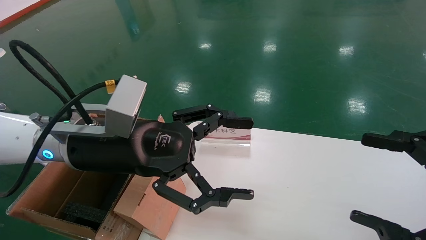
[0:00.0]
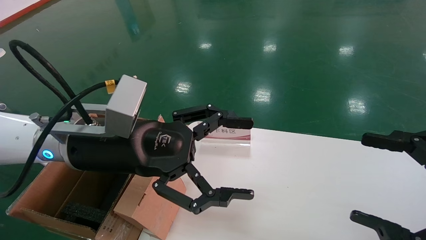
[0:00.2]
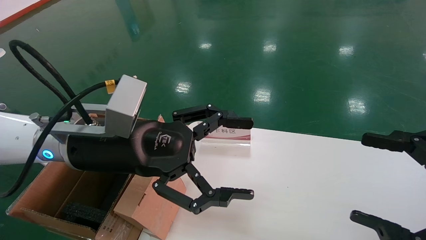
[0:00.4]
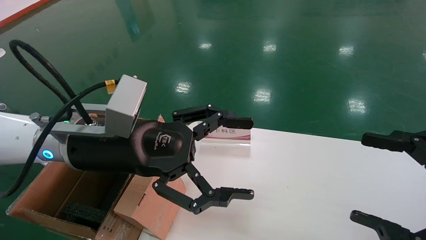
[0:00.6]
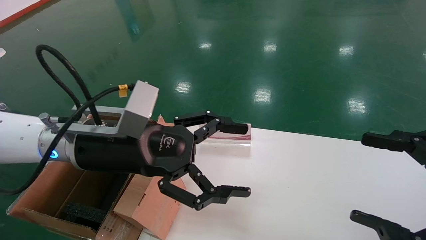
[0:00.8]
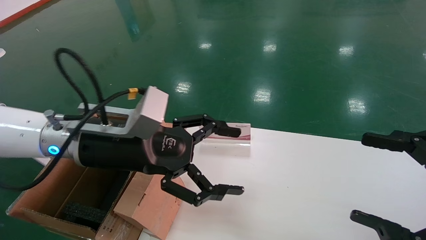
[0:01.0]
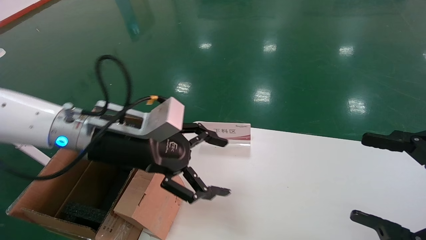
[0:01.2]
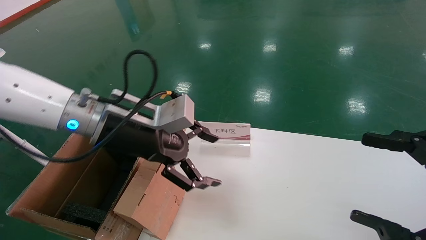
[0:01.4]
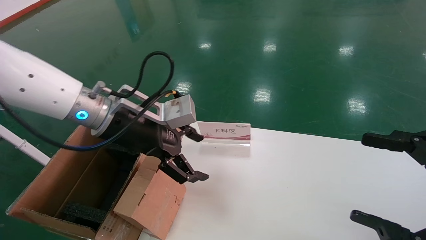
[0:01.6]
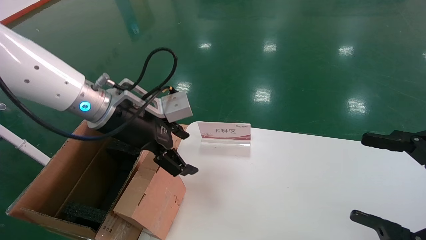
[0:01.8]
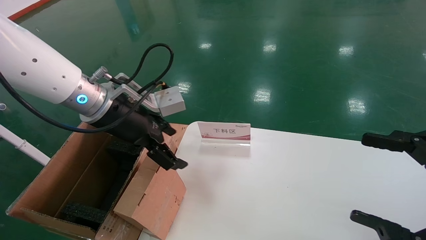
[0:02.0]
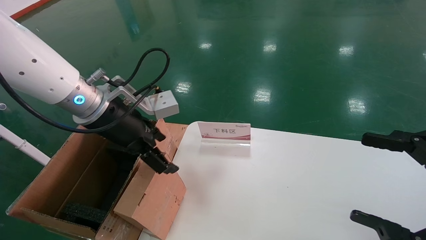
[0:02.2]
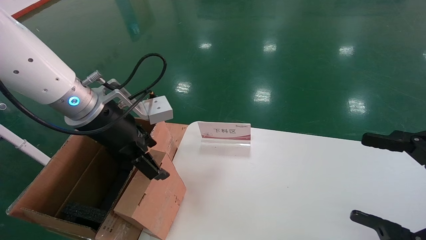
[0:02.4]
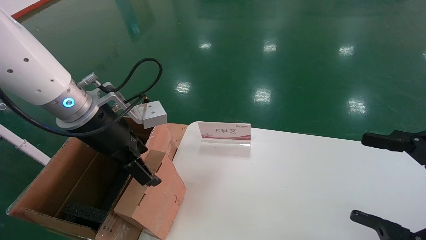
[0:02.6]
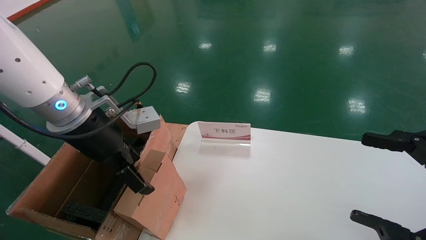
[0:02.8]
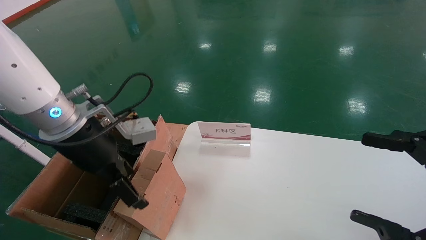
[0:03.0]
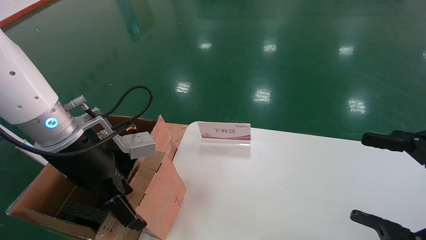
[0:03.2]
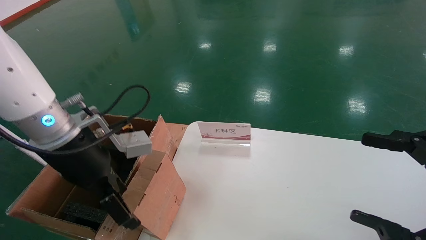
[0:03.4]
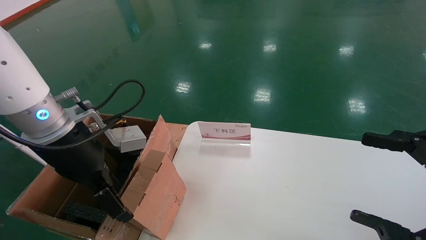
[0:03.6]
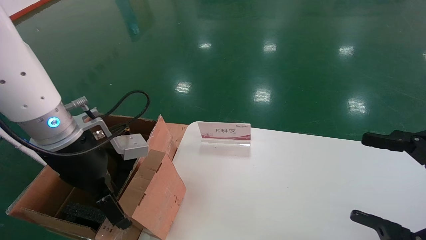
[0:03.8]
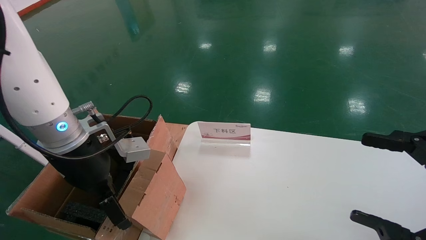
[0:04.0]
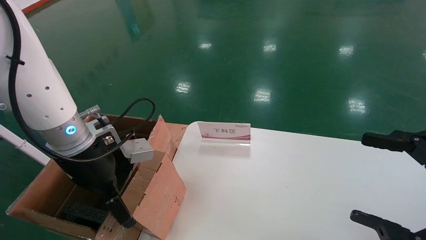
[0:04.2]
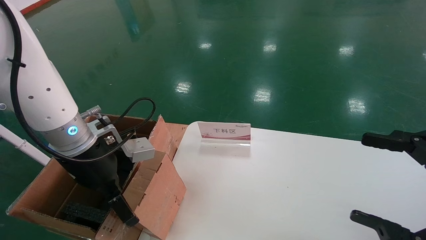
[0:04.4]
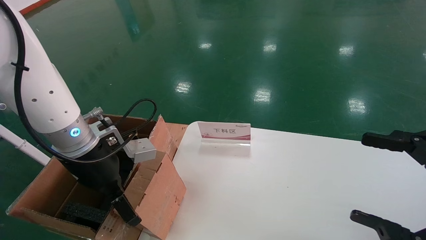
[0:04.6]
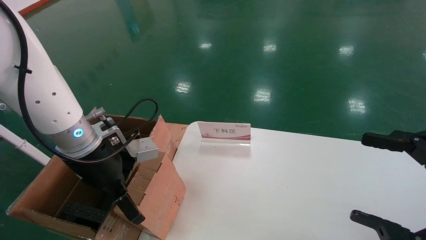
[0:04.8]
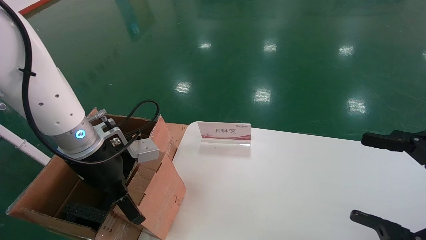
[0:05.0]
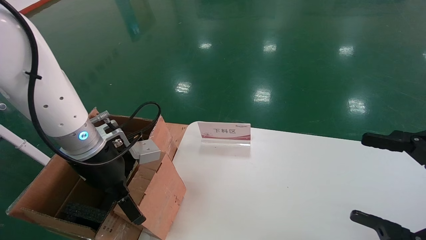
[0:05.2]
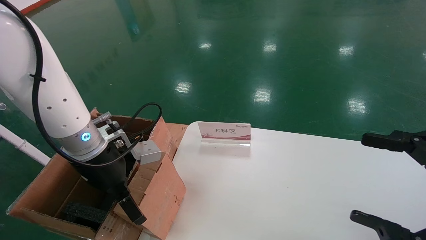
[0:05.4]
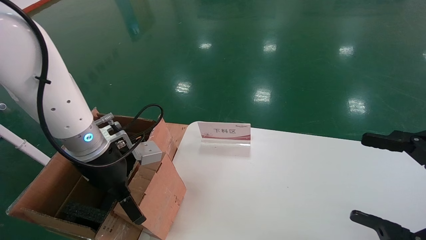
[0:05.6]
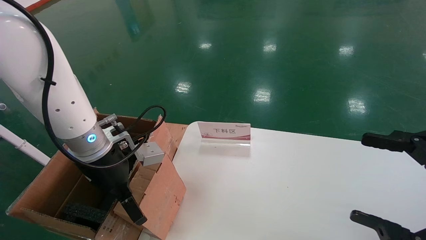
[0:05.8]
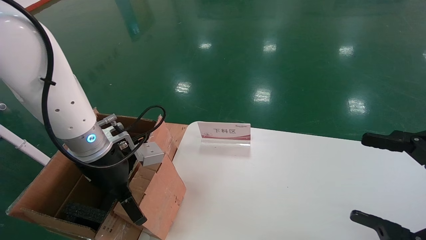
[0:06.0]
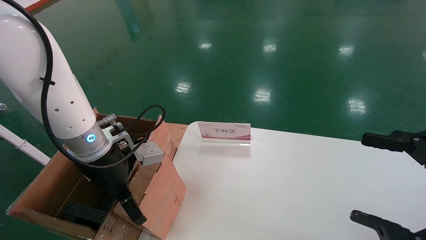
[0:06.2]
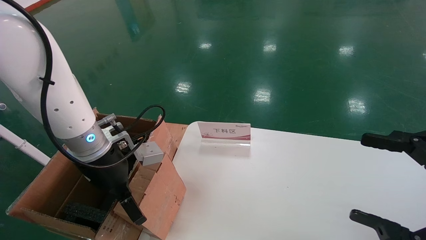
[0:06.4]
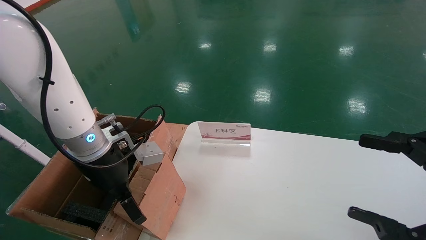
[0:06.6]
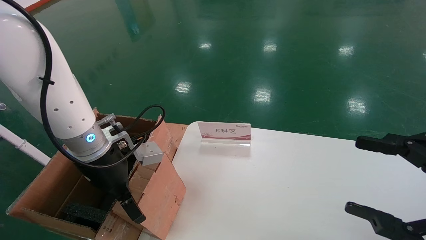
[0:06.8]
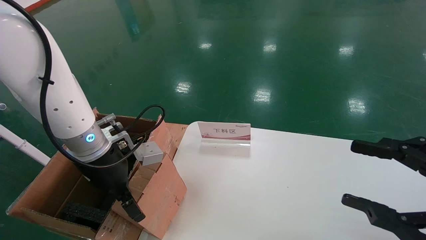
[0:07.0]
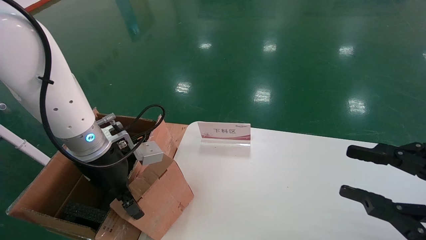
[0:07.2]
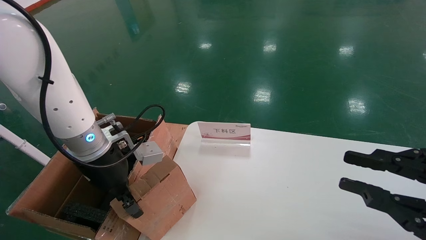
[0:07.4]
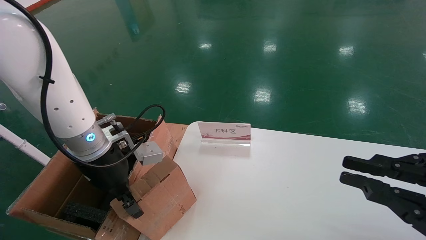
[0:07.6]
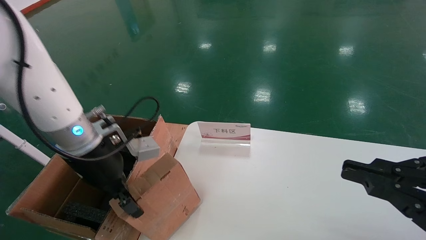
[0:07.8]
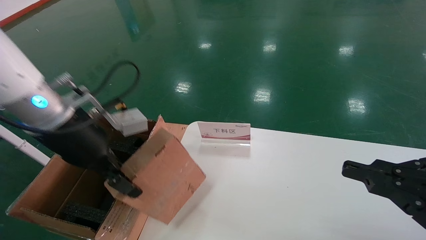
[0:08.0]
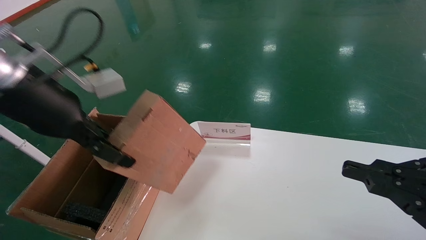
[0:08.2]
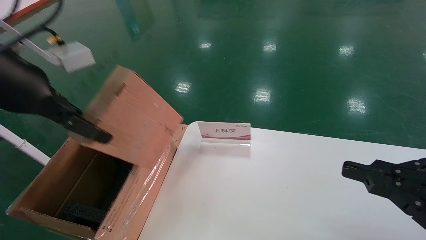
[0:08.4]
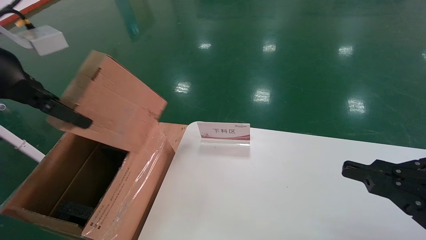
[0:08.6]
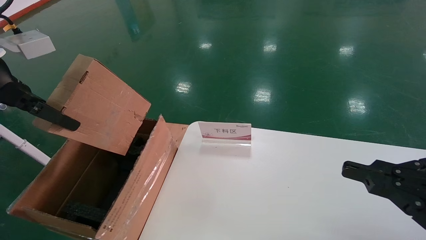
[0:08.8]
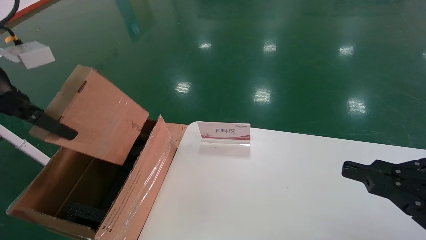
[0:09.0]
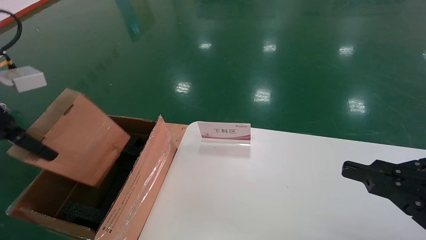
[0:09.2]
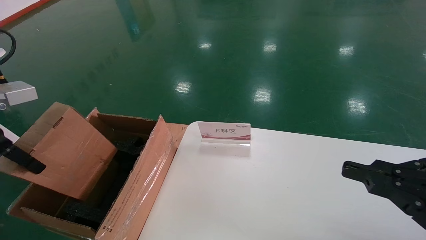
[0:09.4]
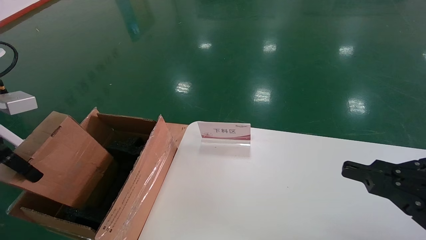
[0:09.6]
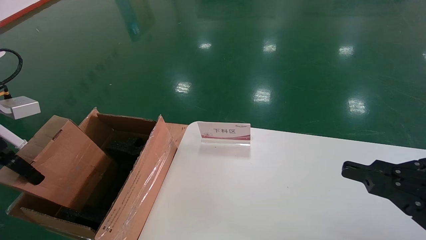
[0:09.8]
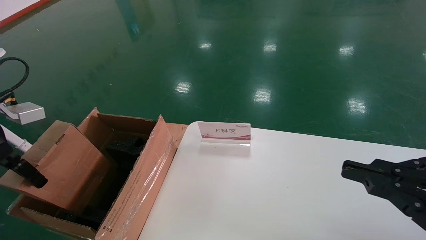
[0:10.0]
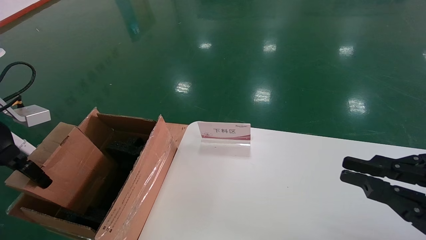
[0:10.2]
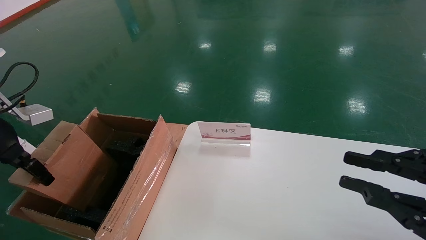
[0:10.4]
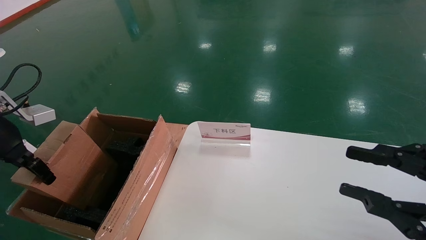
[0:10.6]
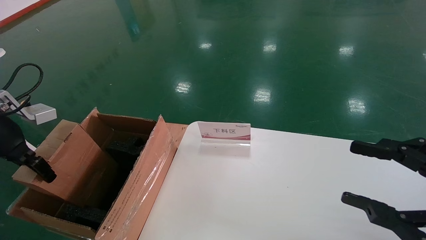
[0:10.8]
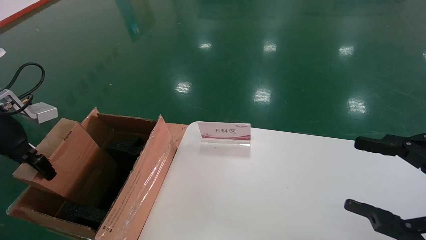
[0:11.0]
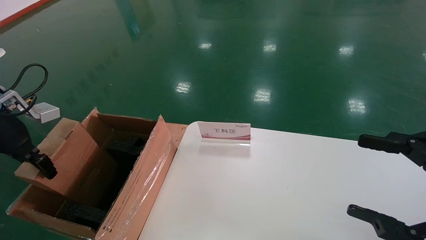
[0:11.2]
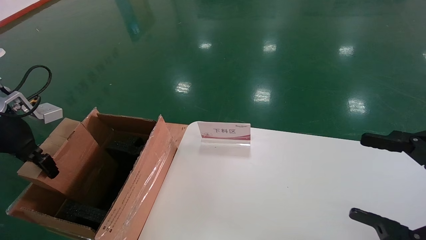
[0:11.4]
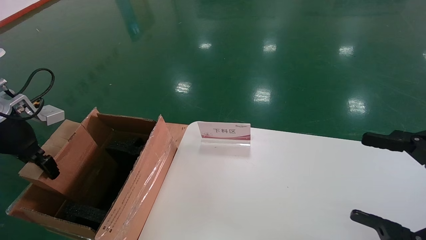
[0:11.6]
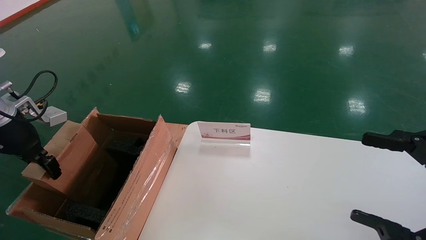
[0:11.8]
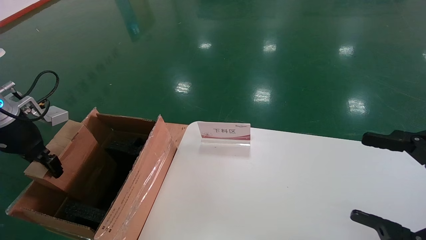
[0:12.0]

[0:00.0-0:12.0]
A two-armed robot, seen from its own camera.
Task of the whole recording: pick up the small cardboard box and load it into the large cardboard box.
Step, 0:01.0 to 0:07.6: Pick up the mouse and power cord box.
0:00.0 to 0:01.6: The left gripper is displaced forward by approximately 5 cm.
0:01.6 to 0:03.0: The left gripper ends up about 5 cm from where it was.
0:03.0 to 0:06.0: The grippers make only small movements.
0:06.0 to 0:07.6: The left gripper closes. Meanwhile the right gripper closes up.
0:07.6 to 0:09.0: The left gripper moves upward, to the left and backward, approximately 20 cm.
0:09.0 to 0:10.4: The left gripper heads downward and to the left, covering some 10 cm.
0:10.4 to 0:12.0: The left gripper moves forward, some 5 cm. The right gripper opens its fingers.

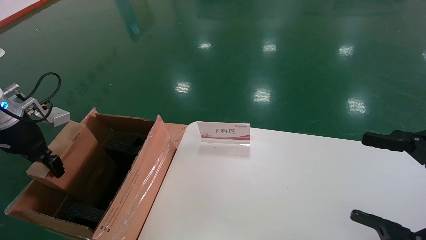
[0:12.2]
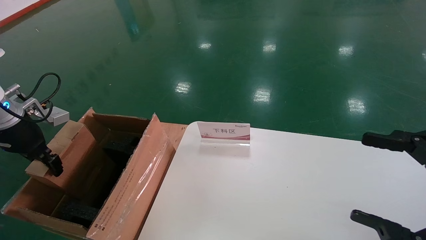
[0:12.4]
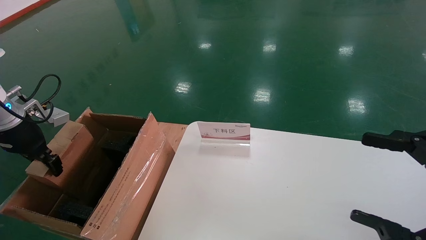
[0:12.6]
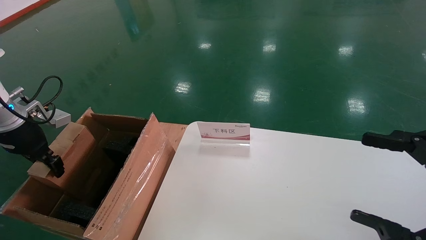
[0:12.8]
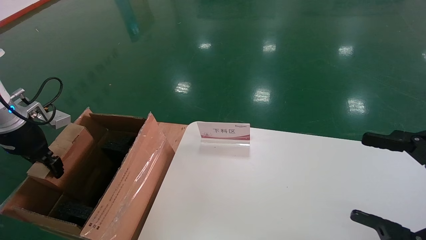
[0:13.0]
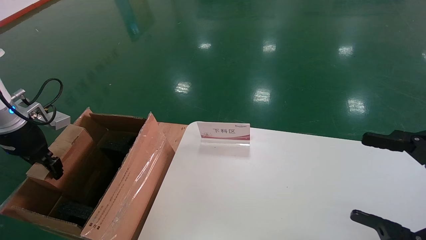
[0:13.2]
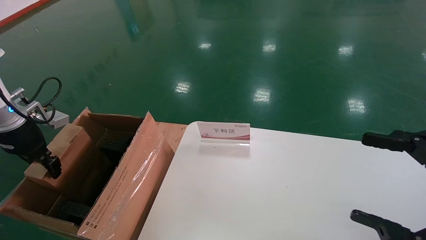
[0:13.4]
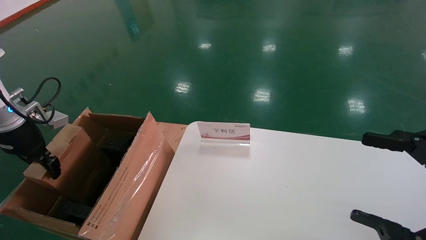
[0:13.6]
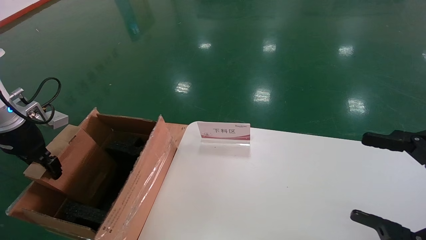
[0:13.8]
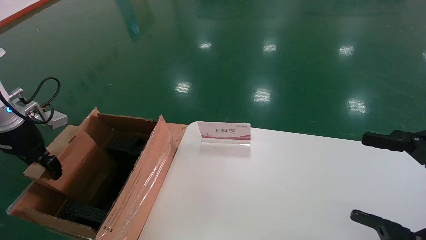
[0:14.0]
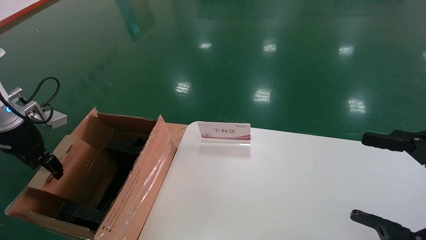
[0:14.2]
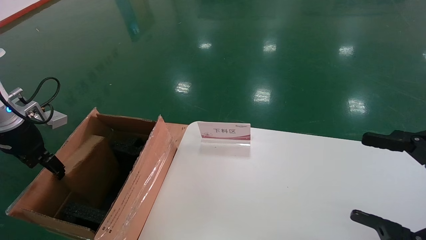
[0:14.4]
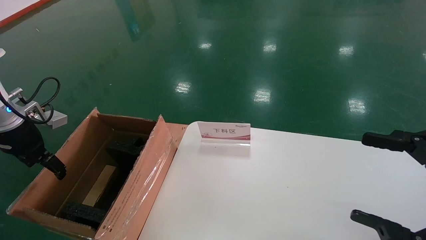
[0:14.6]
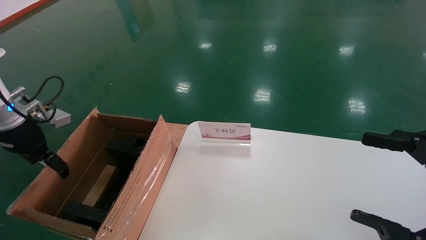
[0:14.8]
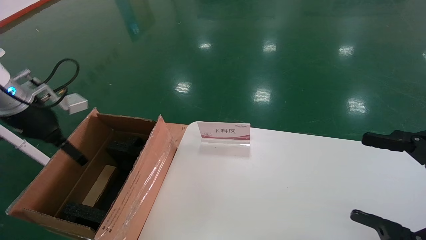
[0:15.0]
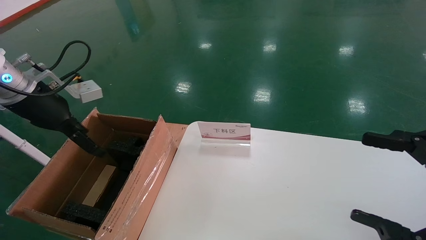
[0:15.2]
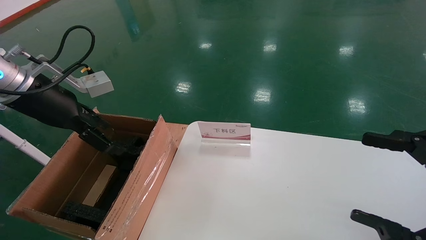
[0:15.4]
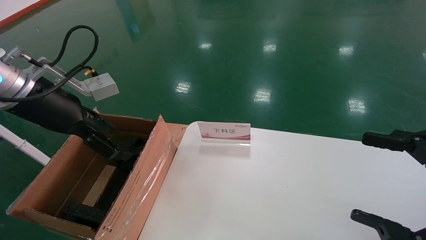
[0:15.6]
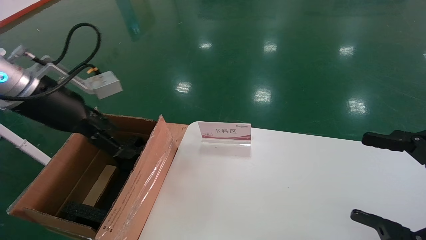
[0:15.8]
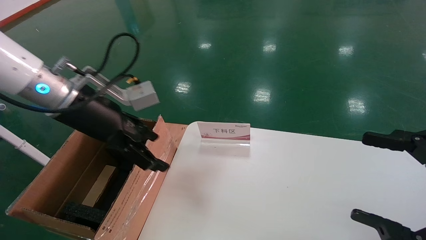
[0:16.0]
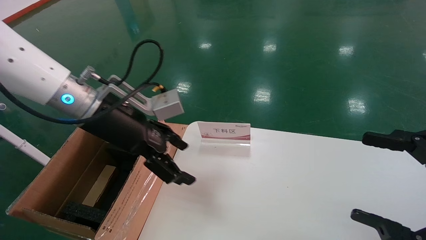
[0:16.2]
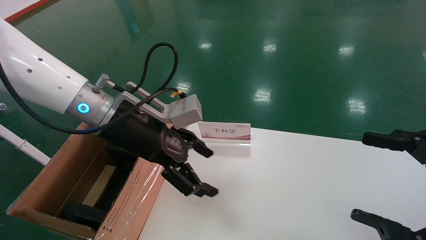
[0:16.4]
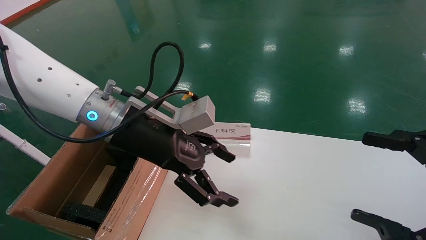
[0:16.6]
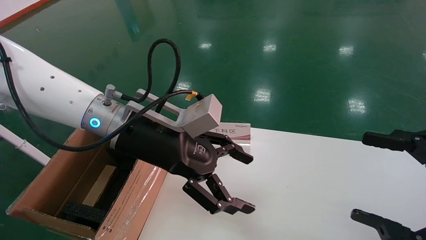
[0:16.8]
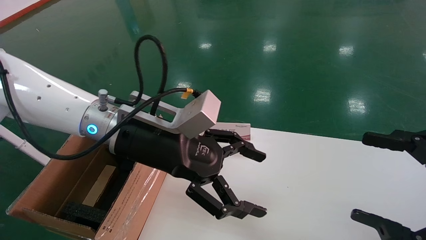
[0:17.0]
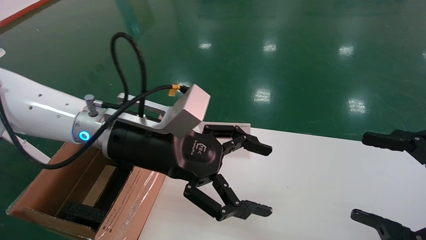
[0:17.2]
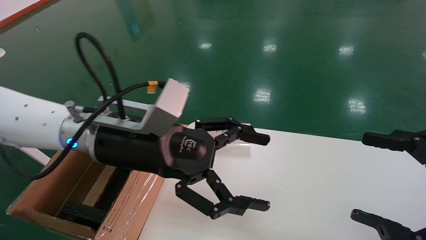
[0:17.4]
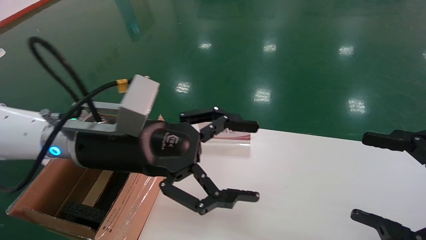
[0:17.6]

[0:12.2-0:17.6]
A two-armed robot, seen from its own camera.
Task of the whole recording: pick up the small cardboard box and load it into the large cardboard box.
Step, 0:12.2 to 0:14.6: Place the mouse and power cord box into the case.
0:12.2 to 0:13.6: The grippers move only a little.
0:13.6 to 0:15.0: The left gripper ends up about 5 cm from where it was, and opens.
0:15.0 to 0:16.2: The left gripper moves to the right, roughly 20 cm.
0:16.2 to 0:17.6: The left gripper ends up approximately 5 cm from where it was.
